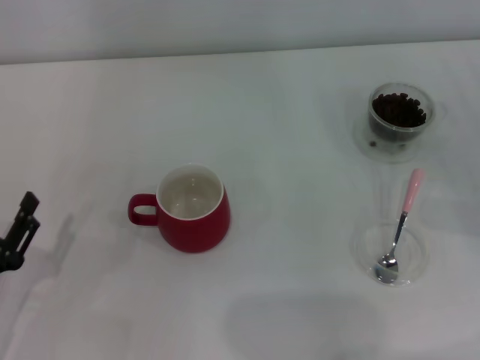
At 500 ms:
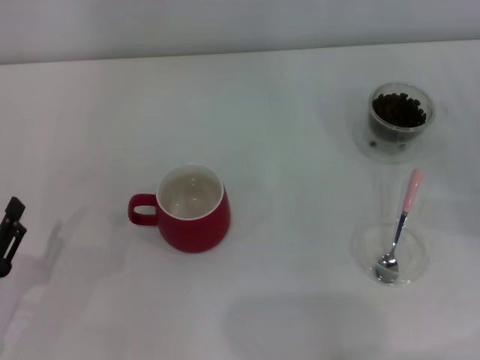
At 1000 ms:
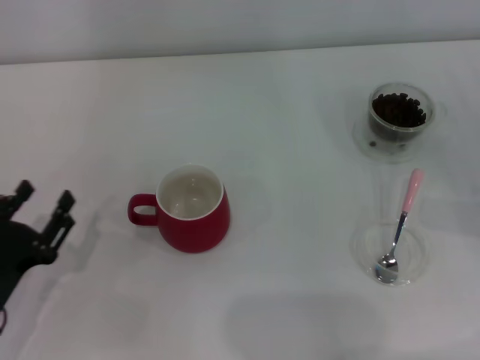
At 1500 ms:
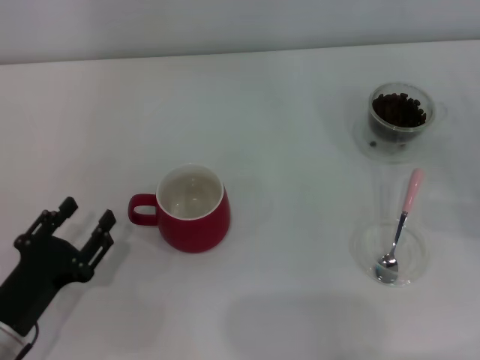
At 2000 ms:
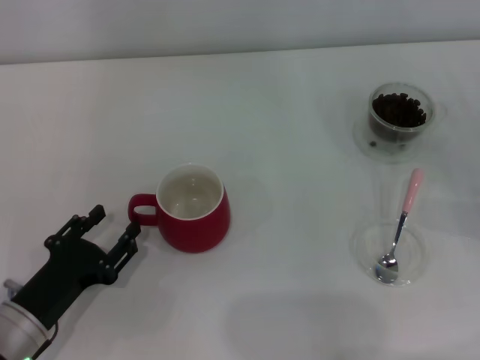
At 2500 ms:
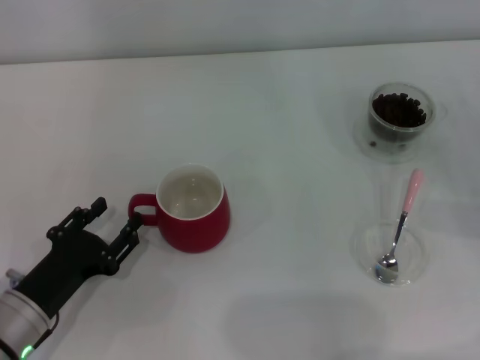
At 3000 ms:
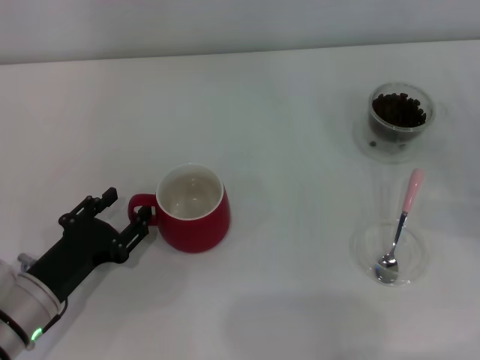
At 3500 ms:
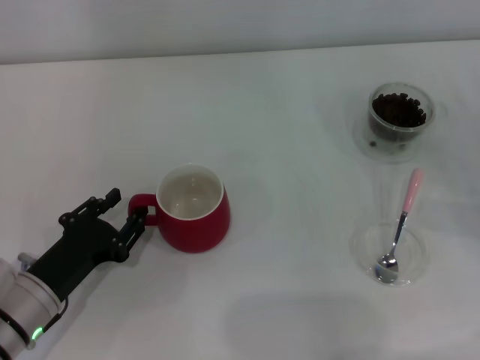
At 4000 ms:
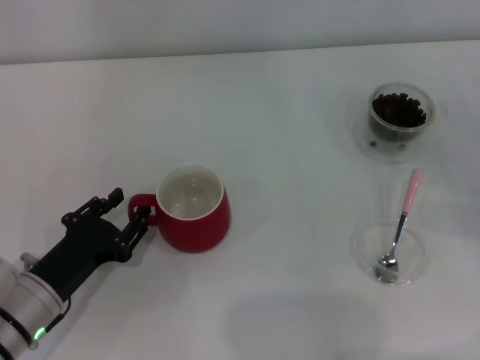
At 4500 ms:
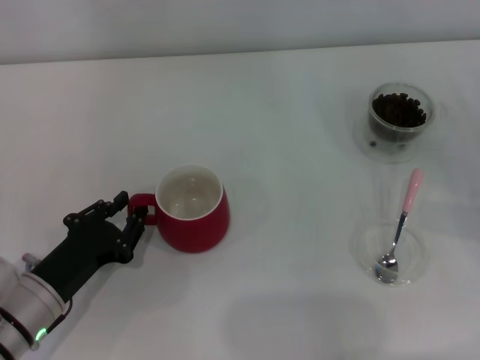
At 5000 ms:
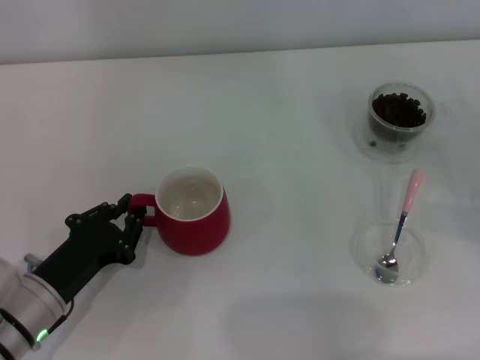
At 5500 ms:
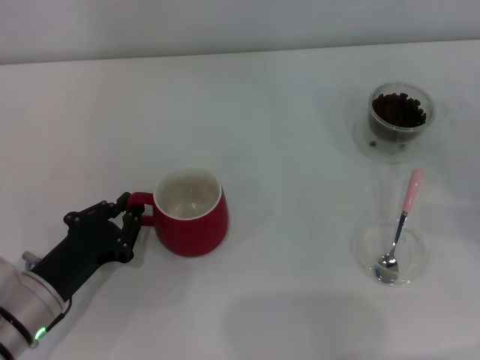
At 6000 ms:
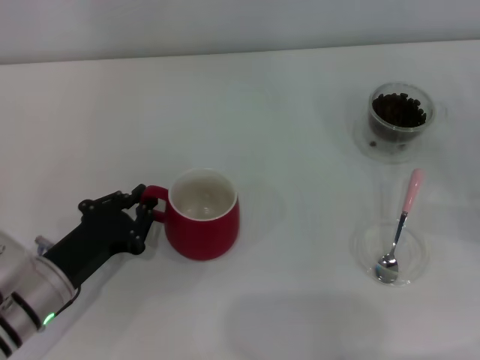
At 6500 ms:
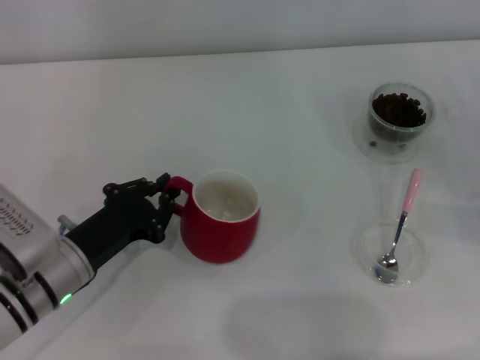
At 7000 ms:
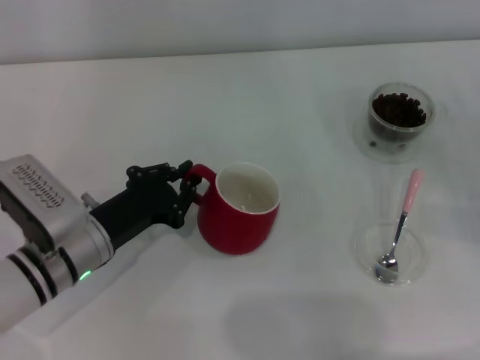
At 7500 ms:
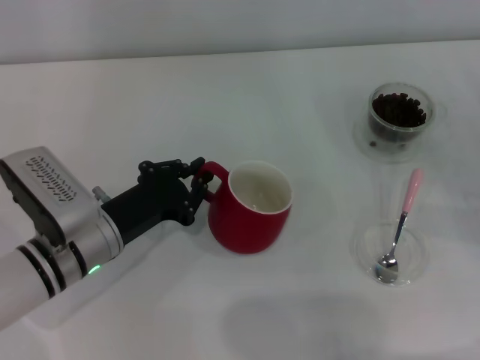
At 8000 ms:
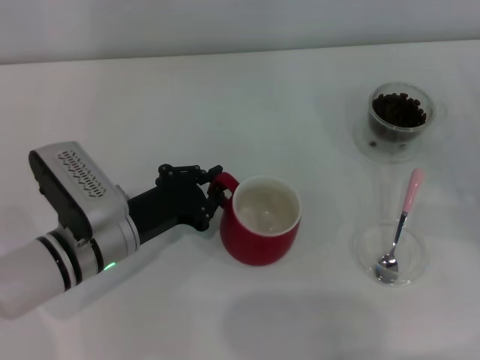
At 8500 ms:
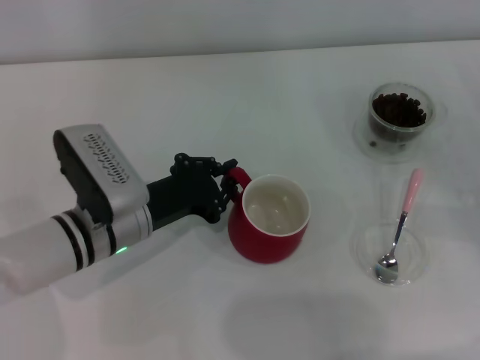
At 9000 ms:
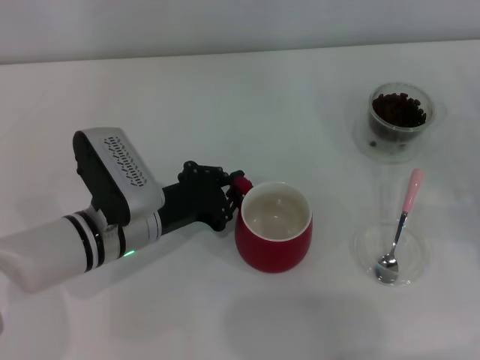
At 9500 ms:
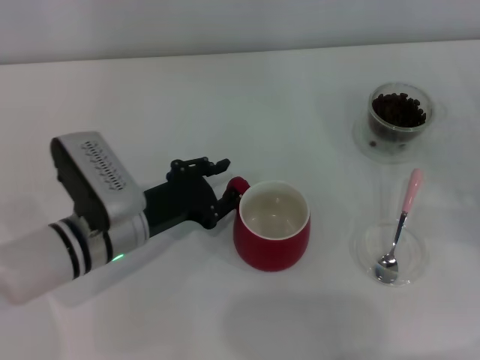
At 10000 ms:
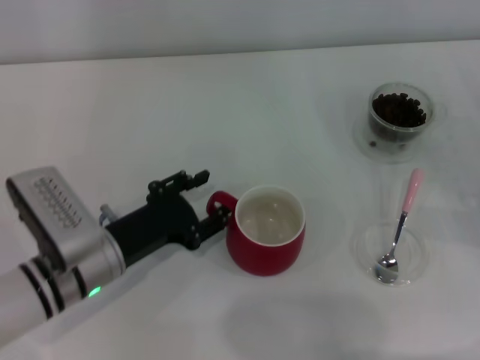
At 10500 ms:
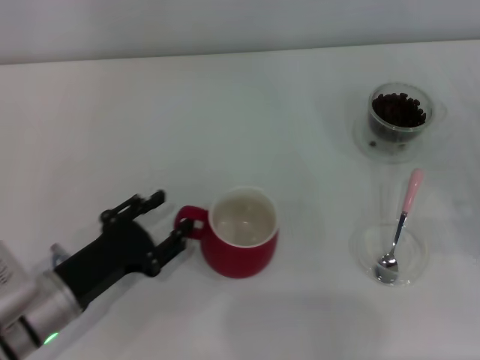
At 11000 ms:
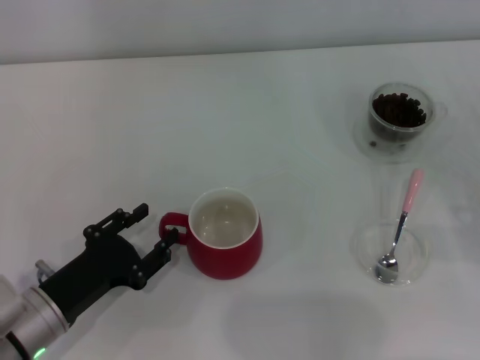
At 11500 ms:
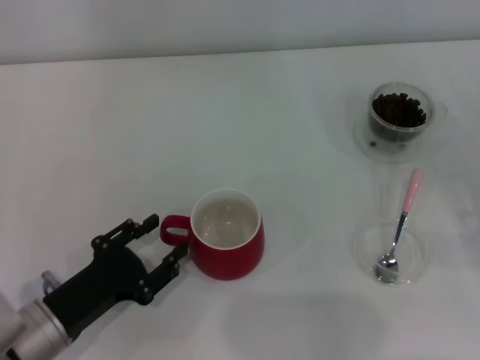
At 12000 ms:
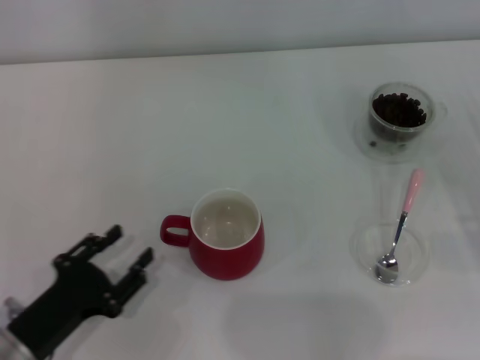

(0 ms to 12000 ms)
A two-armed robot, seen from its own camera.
Task of the whole recording: Use a pink spoon to take out the coffee beans from the glass and pour them into the red cup.
Step, 0 ms - 12000 ms: Move the cup to the center of view with the left gripper.
0 ms - 2000 ms: The left gripper goes approximately 5 cm to the right.
2000 ms - 4000 ms: The grippers make only small movements.
4000 ms - 6000 ms: The left gripper closes up.
6000 ms - 8000 ms: The left gripper heads to the right and forward, covering some 10 cm.
8000 ms - 10000 ms: The left gripper opens up.
10000 ms - 12000 ms: The left gripper is displaced backward and to the left by about 10 cm.

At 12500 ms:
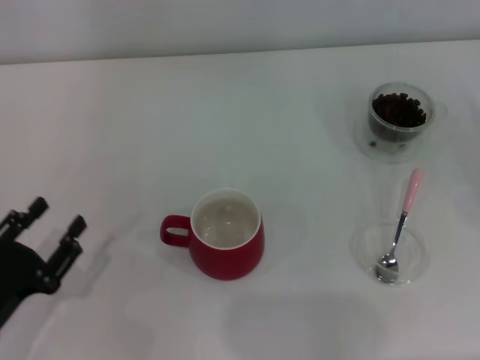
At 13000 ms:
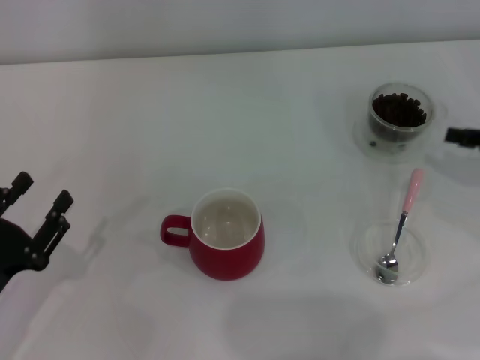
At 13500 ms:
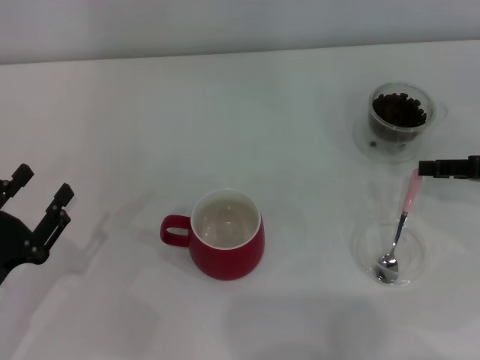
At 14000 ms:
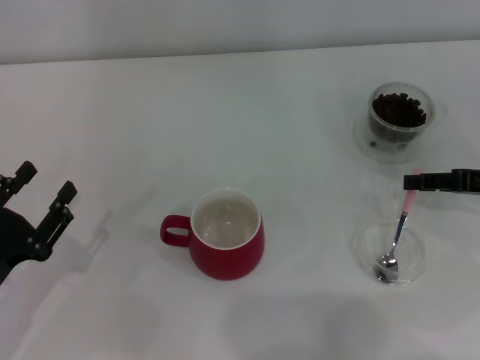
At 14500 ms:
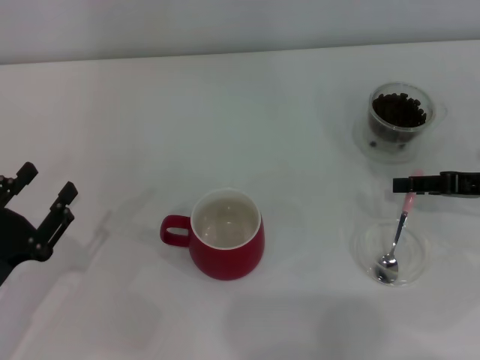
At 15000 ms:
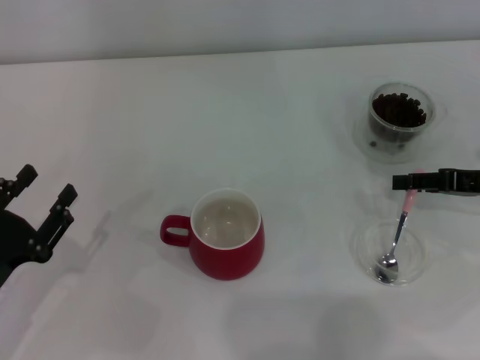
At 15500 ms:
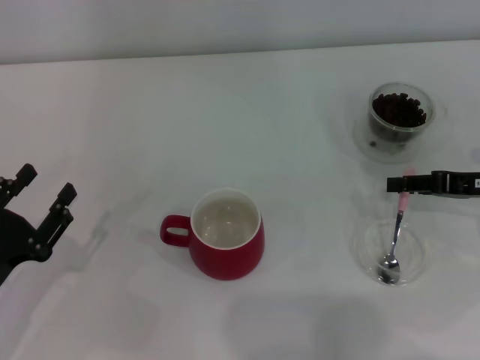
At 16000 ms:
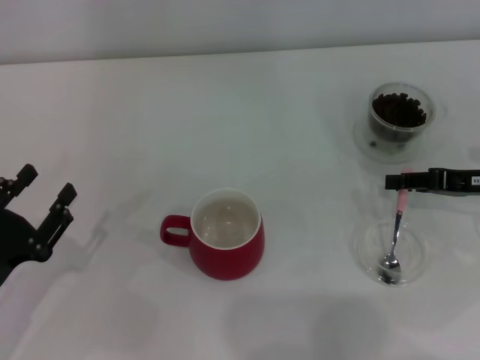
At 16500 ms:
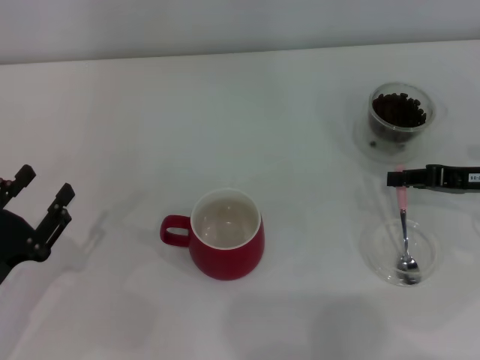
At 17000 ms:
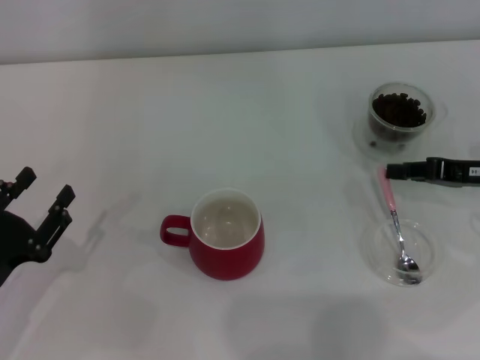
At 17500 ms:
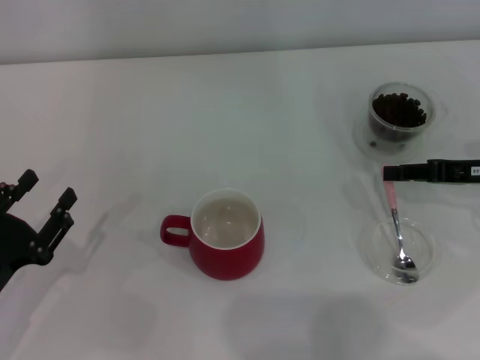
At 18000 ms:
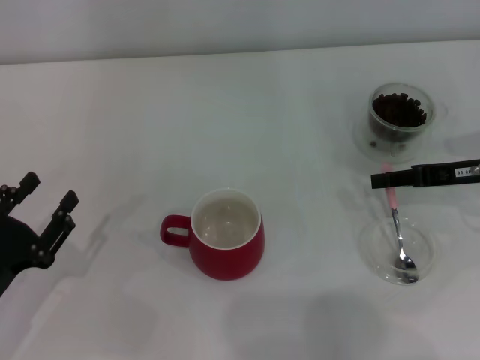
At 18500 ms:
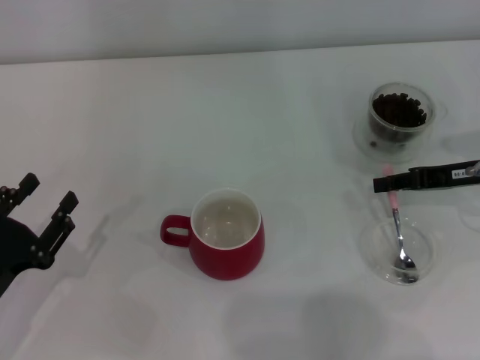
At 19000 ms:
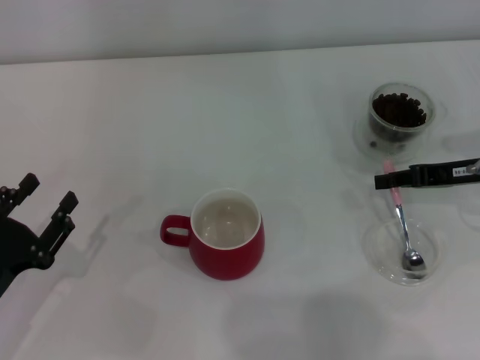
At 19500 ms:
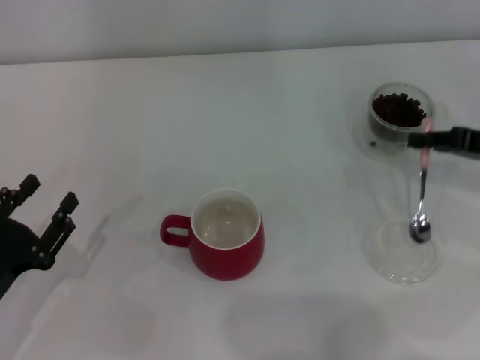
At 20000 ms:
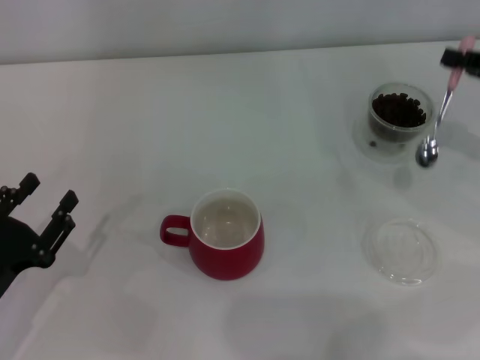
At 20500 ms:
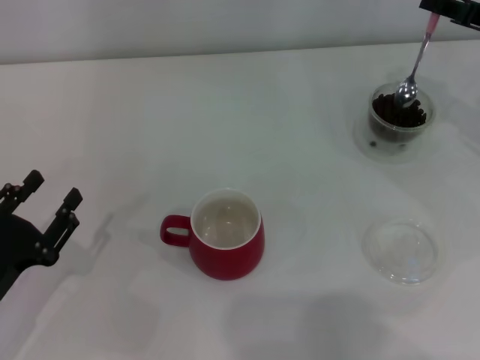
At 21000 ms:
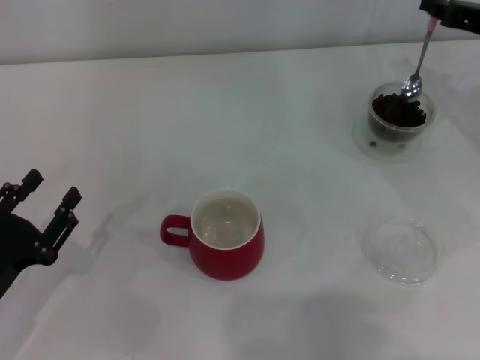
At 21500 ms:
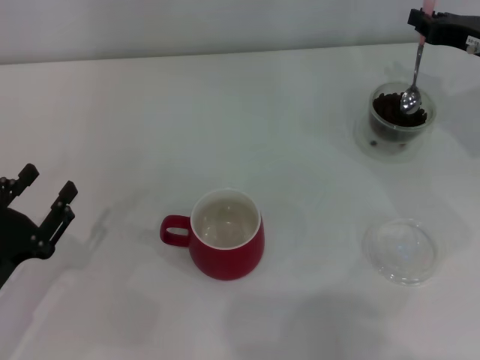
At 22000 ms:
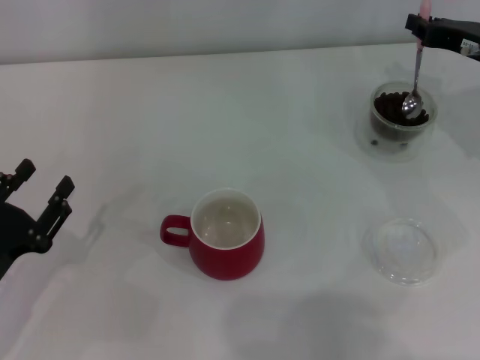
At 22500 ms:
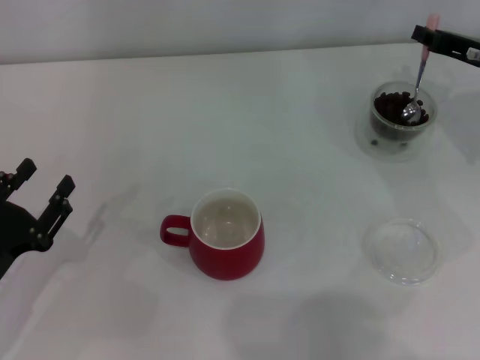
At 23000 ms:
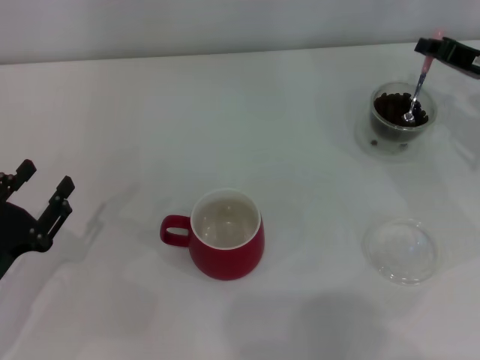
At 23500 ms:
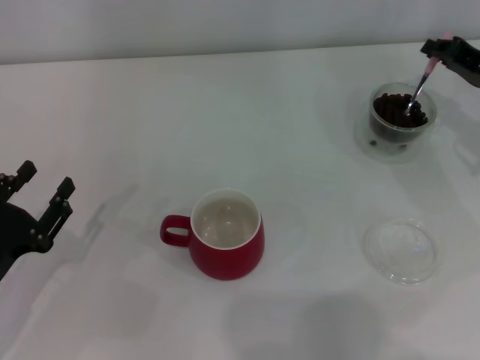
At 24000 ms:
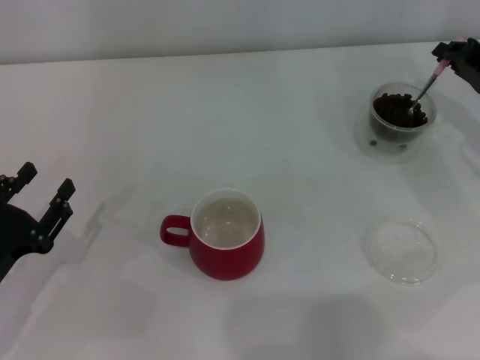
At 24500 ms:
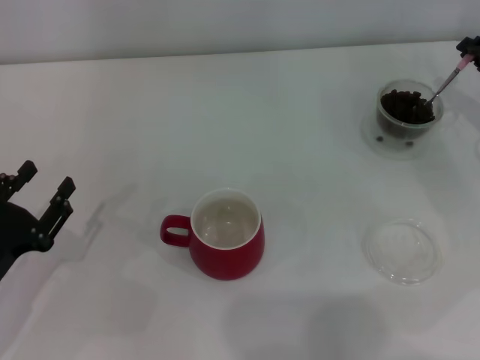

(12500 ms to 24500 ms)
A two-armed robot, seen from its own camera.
Task of the whole recording: Use a pink spoon to take out the coffee beans from the glass and pour them into the red cup.
Step, 12500 ms - 19500 ms: Pick up the spoon with the right gripper.
12500 ms - 14500 ms: The right gripper moves to the left and forward, approximately 10 cm.
14500 ms - 16500 ms: The right gripper closes up.
16500 ms - 18500 ms: The grippers make only small movements.
18500 ms - 20500 ms: The right gripper goes about 10 cm upward and forward, and closes its fingers.
20500 ms - 22500 ms: The grippers move only a little.
22500 ms - 24500 ms: The right gripper ends up about 5 cm from where it was.

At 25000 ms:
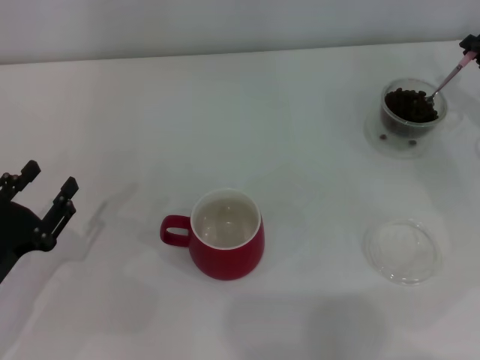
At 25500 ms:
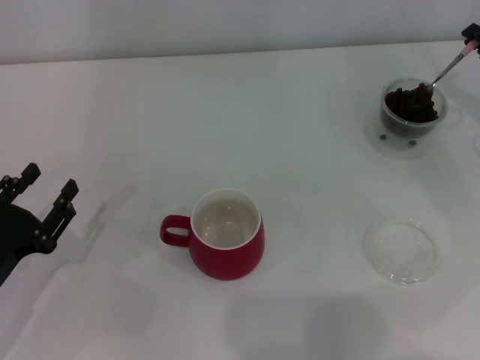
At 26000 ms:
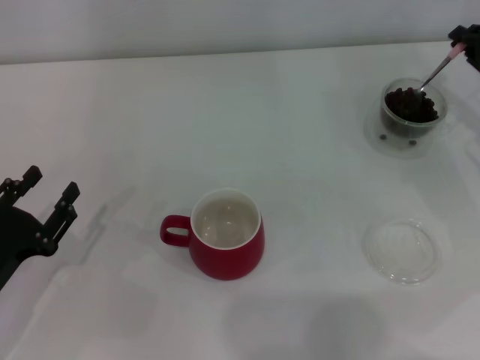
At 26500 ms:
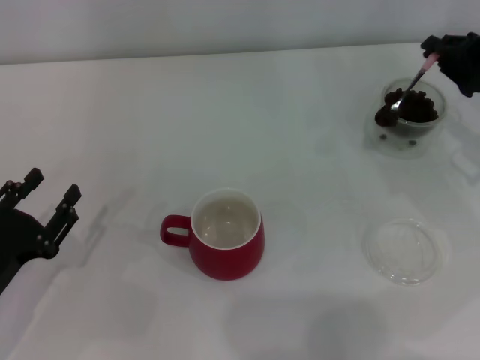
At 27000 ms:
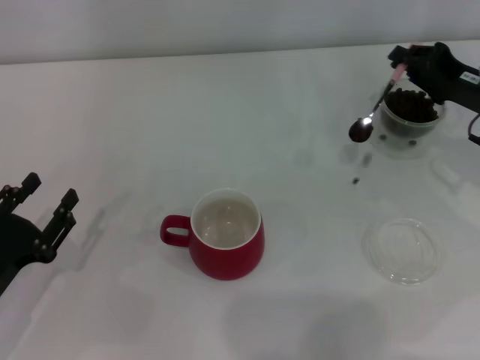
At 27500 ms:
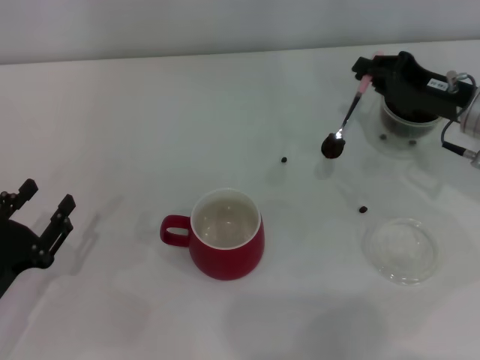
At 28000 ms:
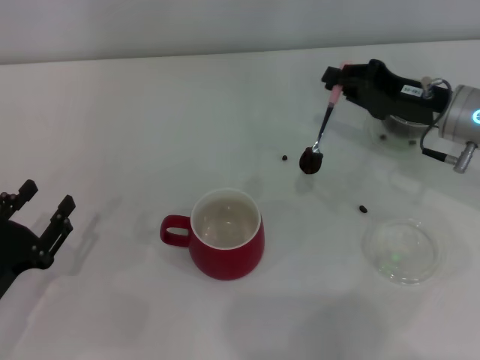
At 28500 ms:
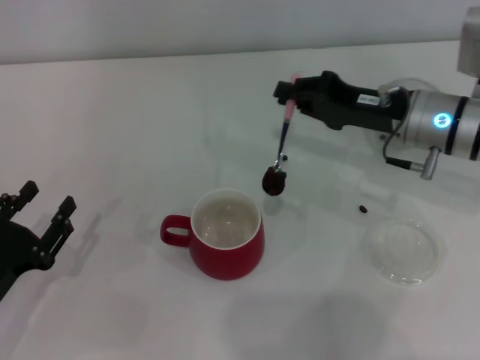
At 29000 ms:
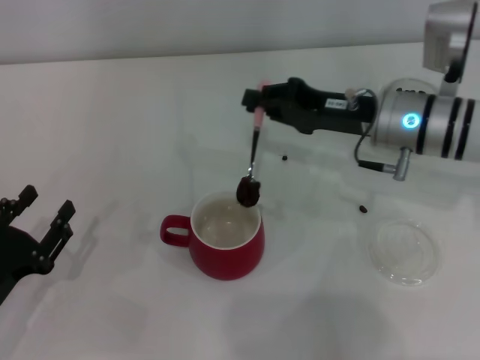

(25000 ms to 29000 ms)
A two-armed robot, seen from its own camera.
Task of the whole recording: Use a pink spoon to take out the coffee beans from the glass and pour them into the red cup.
25000 ms - 27000 ms: The right gripper travels to the left by some 5 cm.
27000 ms - 29000 ms: The right gripper heads to the left, covering roughly 10 cm.
